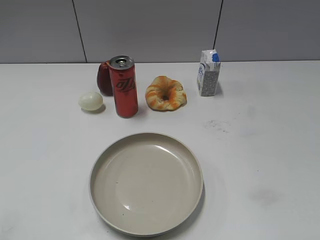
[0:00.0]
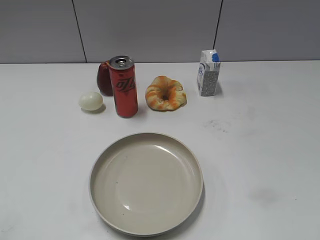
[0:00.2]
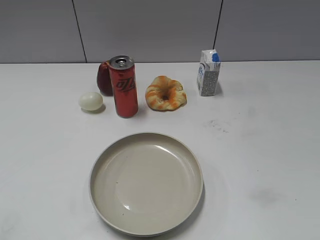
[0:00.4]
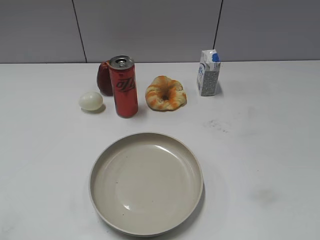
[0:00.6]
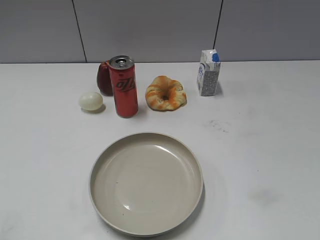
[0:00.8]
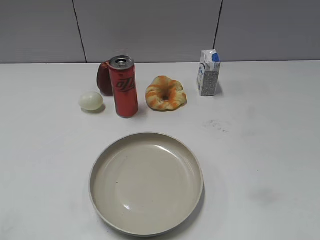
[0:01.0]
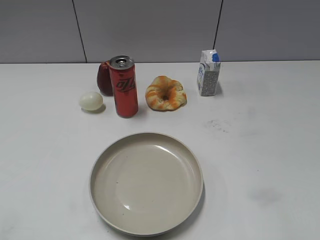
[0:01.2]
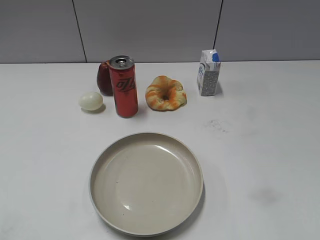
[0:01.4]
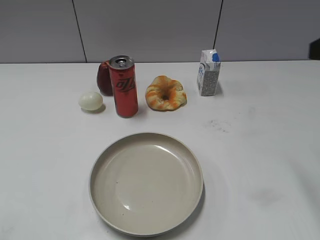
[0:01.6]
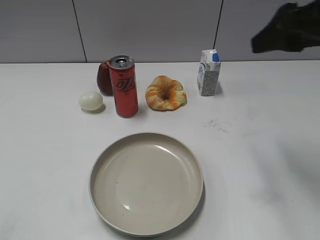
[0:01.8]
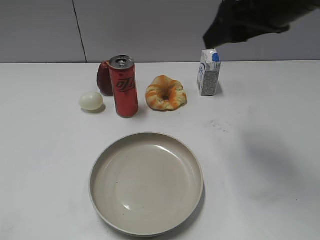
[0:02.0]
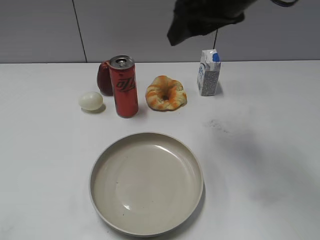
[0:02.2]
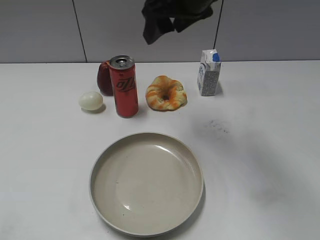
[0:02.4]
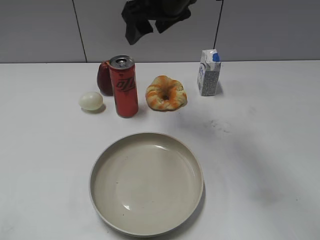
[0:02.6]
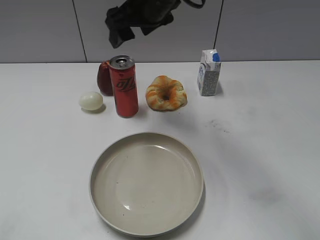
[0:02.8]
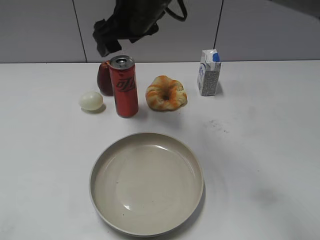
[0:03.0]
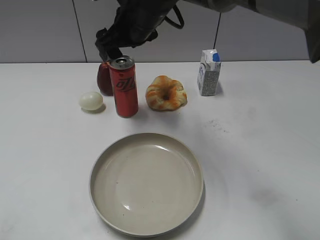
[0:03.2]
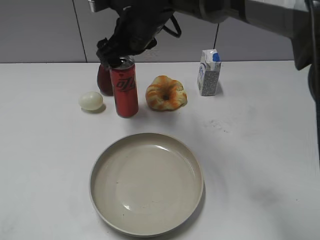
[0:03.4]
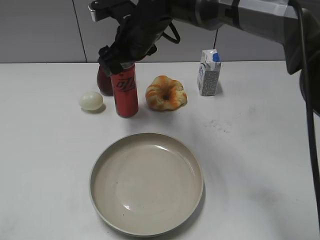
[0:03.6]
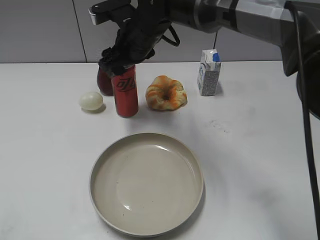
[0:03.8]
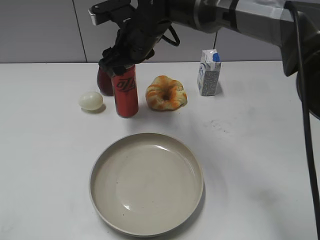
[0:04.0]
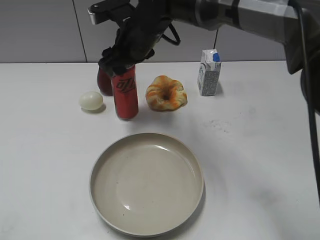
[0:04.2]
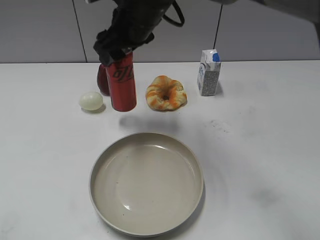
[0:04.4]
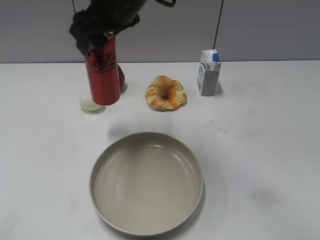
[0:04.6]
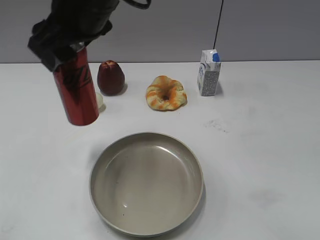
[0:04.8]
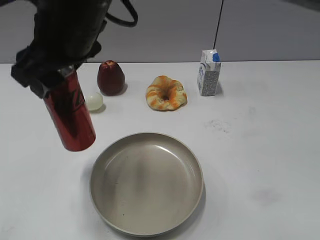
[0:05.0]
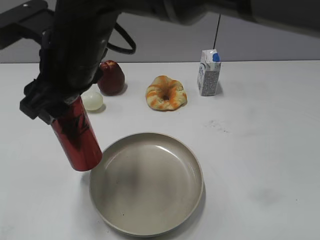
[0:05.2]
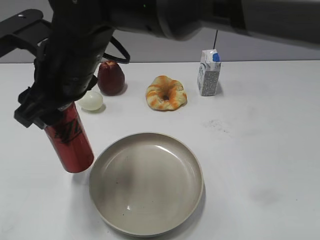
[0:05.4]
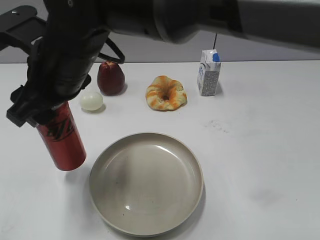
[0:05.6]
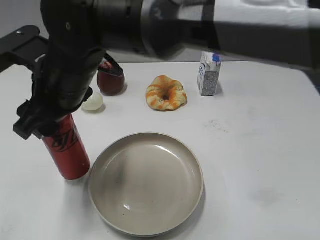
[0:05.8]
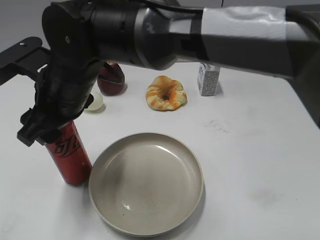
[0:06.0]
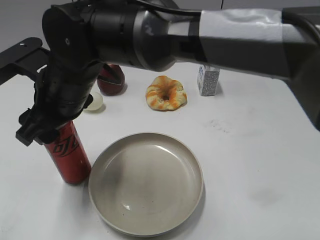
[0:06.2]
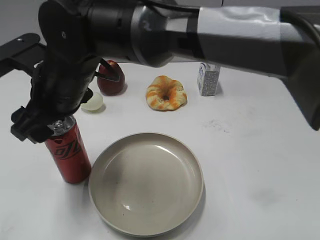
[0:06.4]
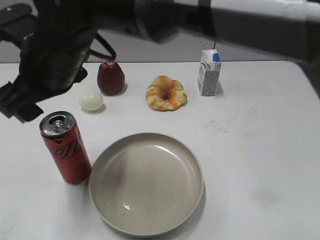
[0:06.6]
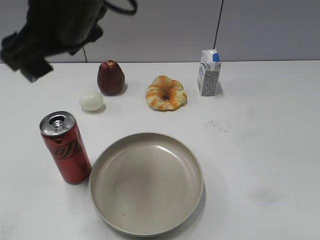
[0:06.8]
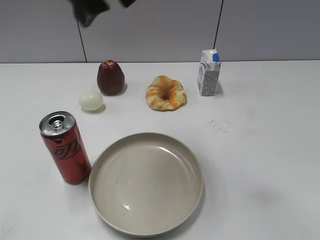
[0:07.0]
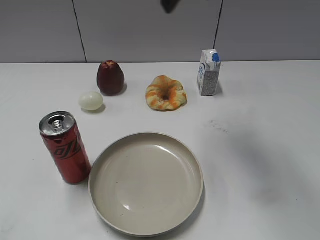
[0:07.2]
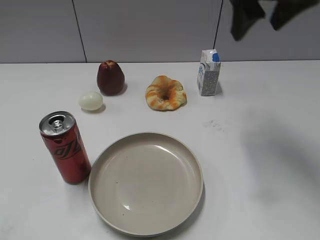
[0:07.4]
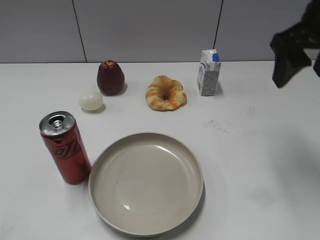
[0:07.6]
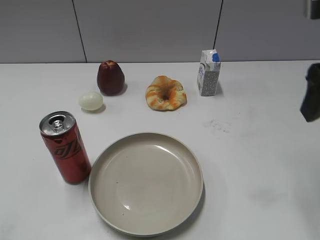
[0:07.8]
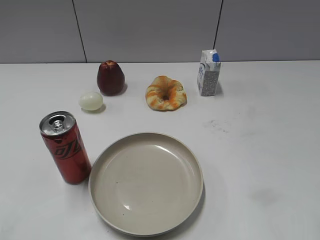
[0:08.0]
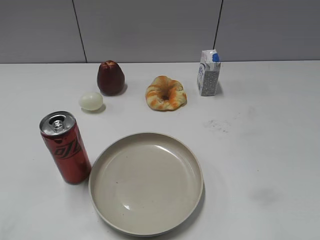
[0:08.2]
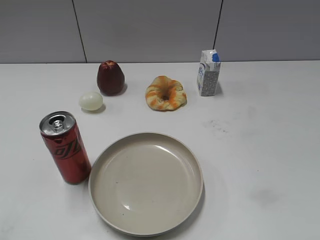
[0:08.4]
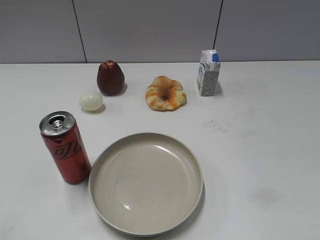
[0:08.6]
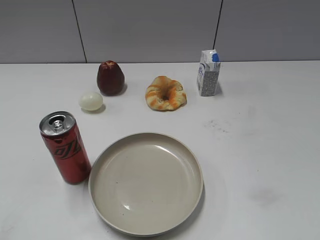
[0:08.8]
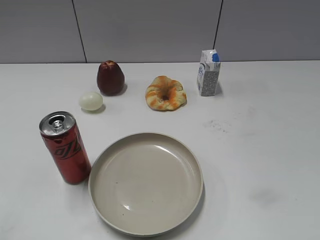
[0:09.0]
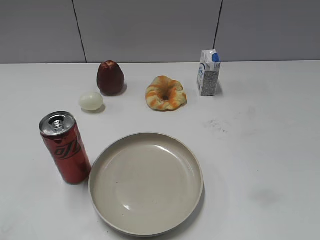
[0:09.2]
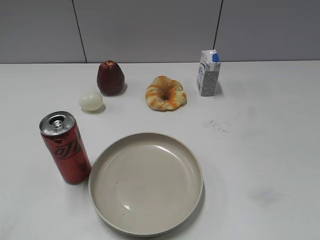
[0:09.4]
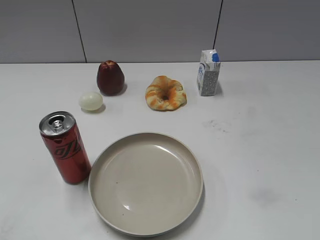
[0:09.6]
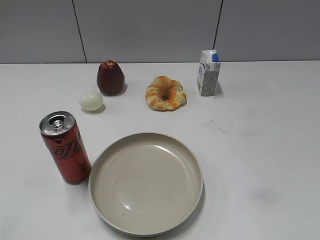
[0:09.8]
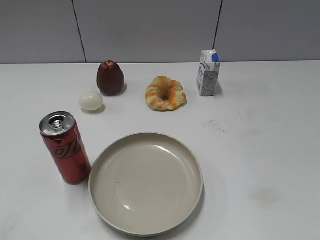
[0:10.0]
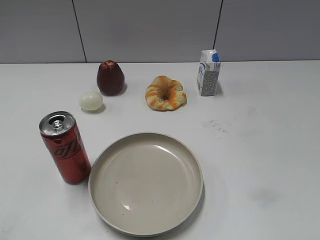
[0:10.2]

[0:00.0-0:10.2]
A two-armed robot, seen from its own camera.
Step, 0:00.8 to 0:03.8: Grasp the cola with right gripper.
Step, 0:04.0 to 0:06.6: Place the cola on the table with right gripper.
0:01.4 to 0:03.0: The right gripper heads to the left and forward, covering some 40 cm, and opens.
0:03.0 to 0:04.4: The right gripper closes up.
0:04.4 to 0:05.8: The right gripper moves backward and to the left, about 15 cm.
0:05.8 to 0:07.2: The right gripper goes approximately 25 cm to the right and upward, and opens its fingers.
0:07.2 to 0:08.8: The right gripper heads backward and to the right, covering approximately 40 cm, and closes.

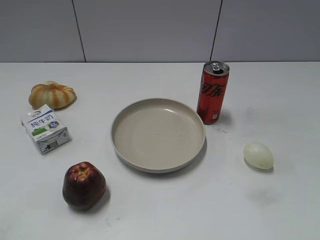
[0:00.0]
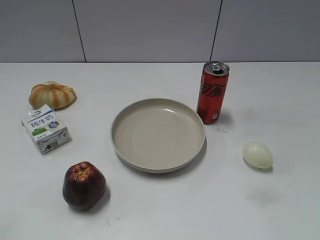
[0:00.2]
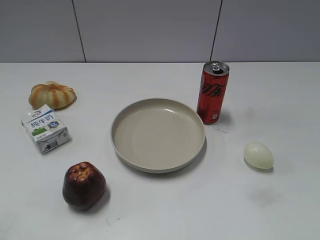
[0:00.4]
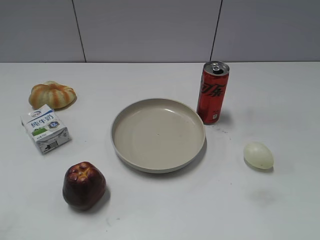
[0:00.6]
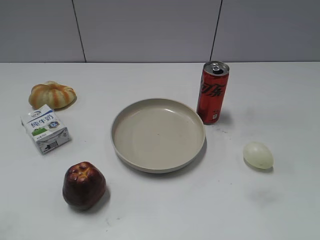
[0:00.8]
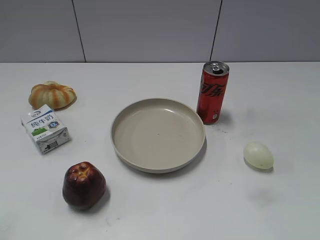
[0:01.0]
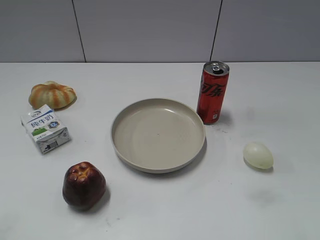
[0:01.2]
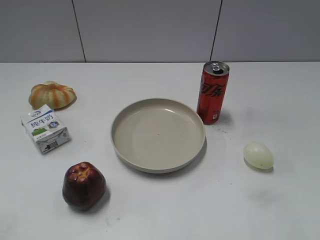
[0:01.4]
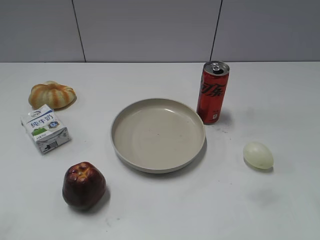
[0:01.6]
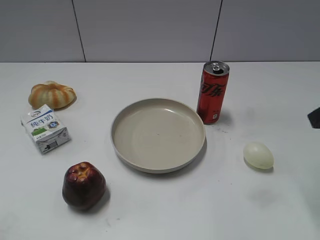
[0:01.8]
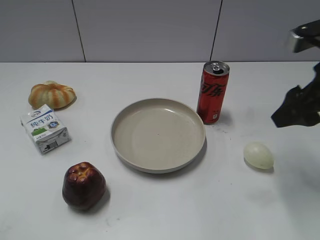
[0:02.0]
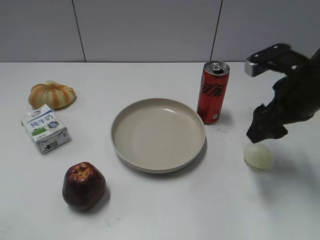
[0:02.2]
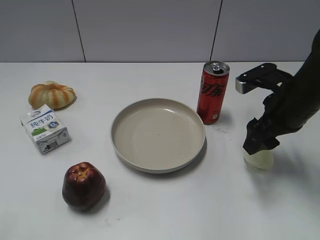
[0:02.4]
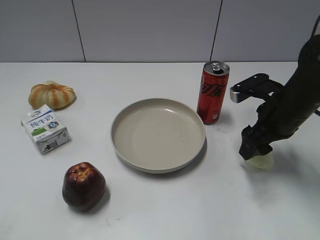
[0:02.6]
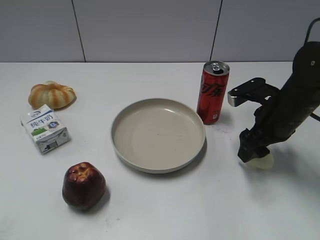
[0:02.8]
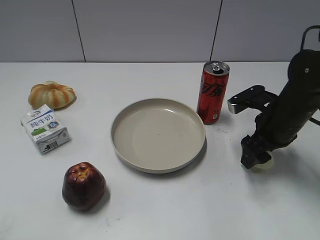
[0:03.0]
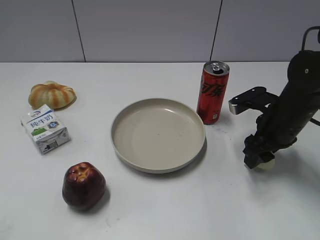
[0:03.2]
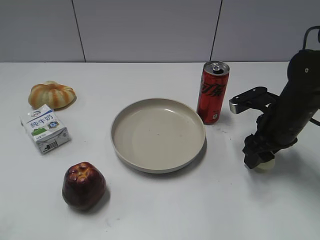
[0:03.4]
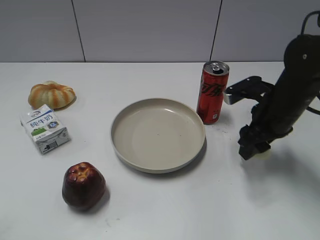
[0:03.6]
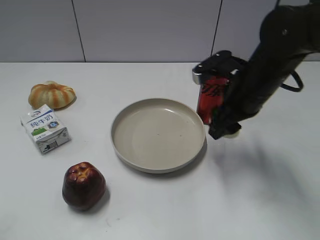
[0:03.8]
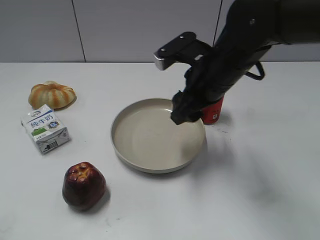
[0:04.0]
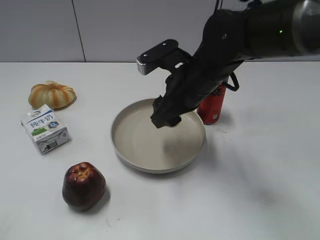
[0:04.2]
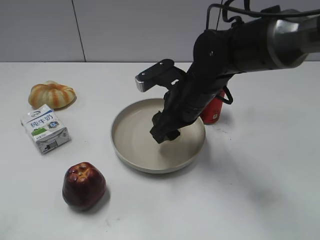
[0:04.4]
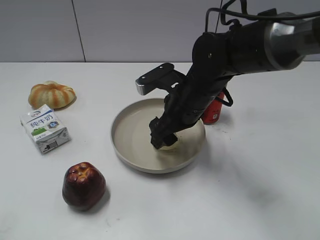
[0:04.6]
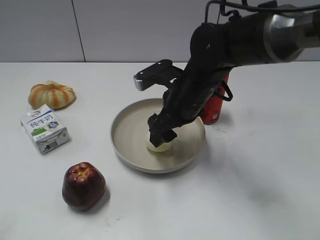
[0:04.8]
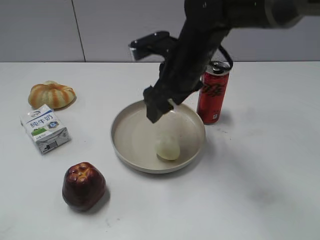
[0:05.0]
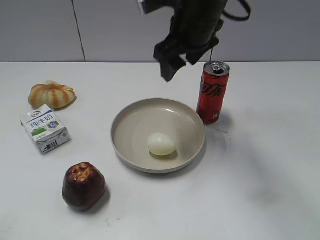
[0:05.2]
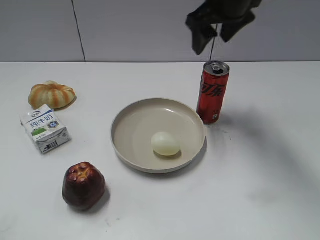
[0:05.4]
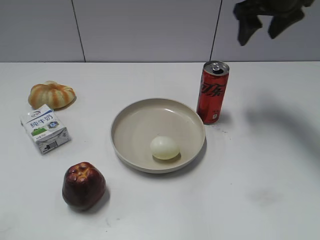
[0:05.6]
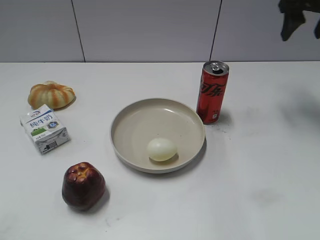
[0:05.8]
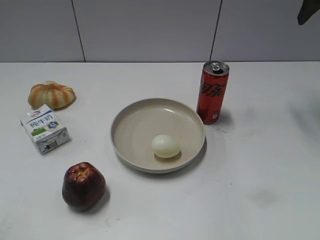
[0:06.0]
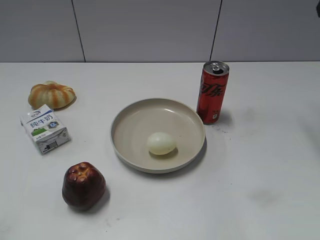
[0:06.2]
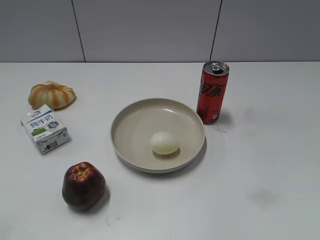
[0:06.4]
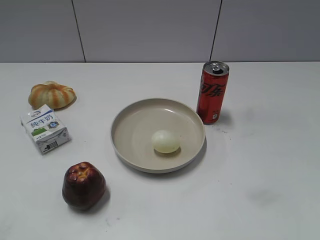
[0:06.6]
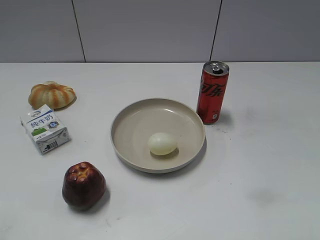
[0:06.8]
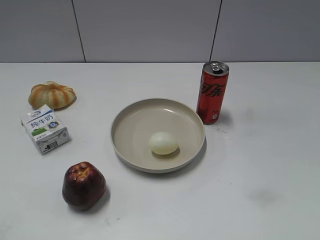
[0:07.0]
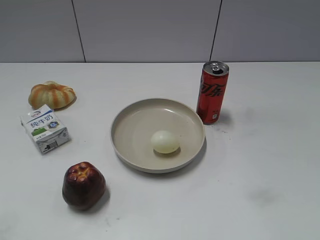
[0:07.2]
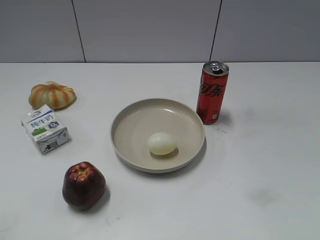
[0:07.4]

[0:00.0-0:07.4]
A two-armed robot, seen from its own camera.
Step, 0:00.8 to 0:03.2: Grasp the egg with right gripper.
Step, 0:03.4 to 0:04.8: Place the egg on the plate with right gripper.
0:01.4 to 0:03.0: The right gripper goes approximately 30 cm forward, downward and to the left.
0:03.0 to 0:04.4: The right gripper heads to the left, covering roughly 15 cm, and closes.
0:04.4 to 0:06.0: The right gripper is displaced to the right, upward and forward by about 30 cm, and opens up.
0:06.0 to 0:07.4: The right gripper shifts some 40 cm backward.

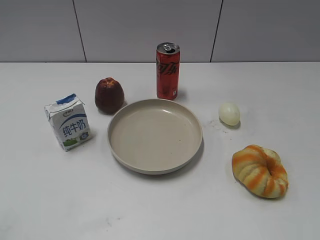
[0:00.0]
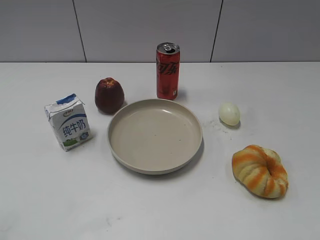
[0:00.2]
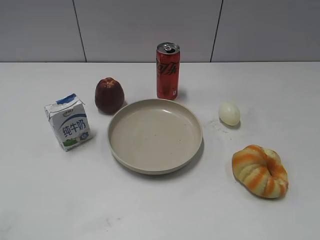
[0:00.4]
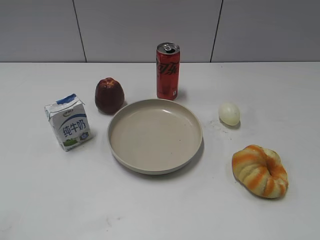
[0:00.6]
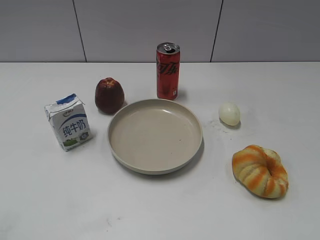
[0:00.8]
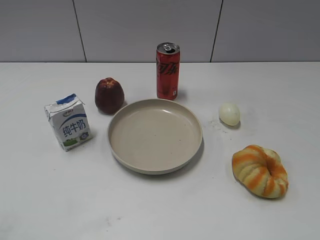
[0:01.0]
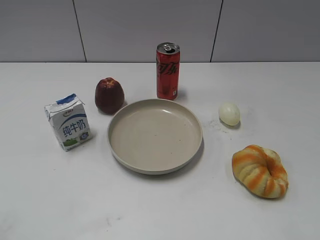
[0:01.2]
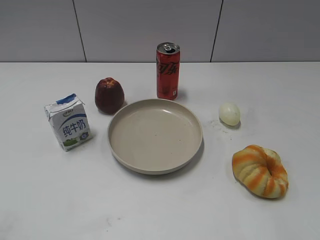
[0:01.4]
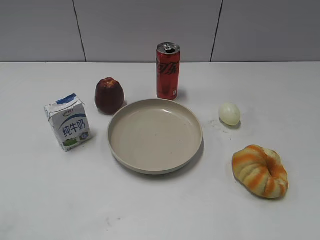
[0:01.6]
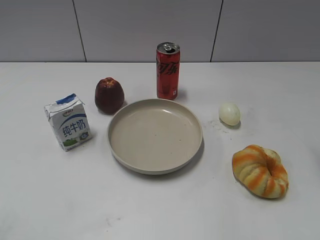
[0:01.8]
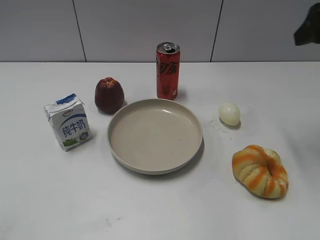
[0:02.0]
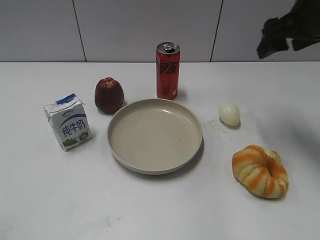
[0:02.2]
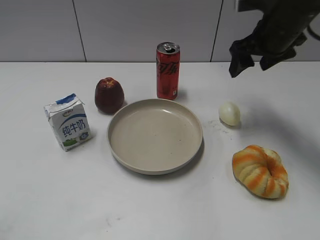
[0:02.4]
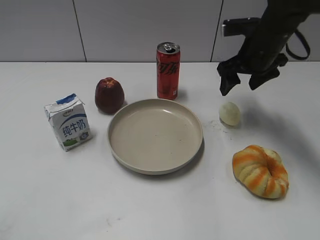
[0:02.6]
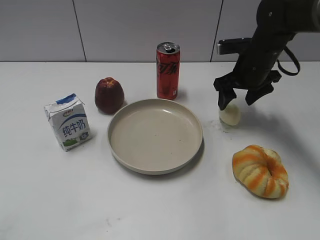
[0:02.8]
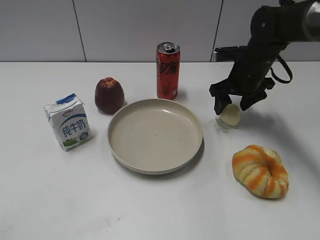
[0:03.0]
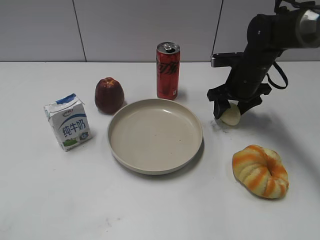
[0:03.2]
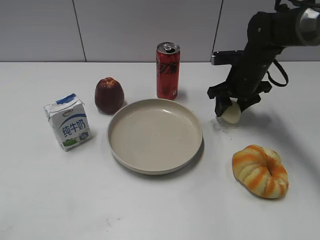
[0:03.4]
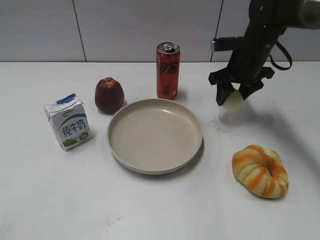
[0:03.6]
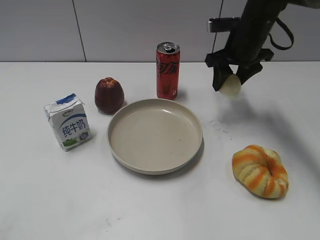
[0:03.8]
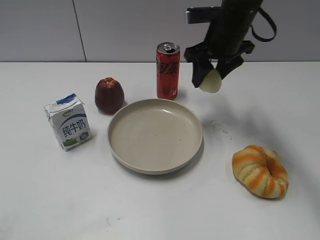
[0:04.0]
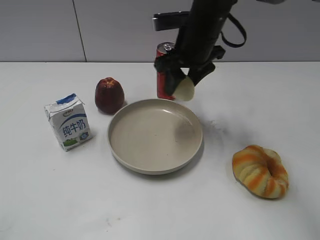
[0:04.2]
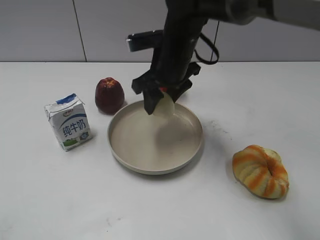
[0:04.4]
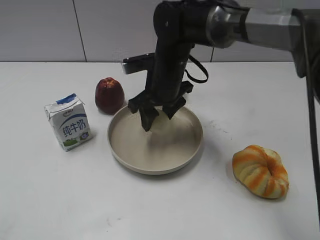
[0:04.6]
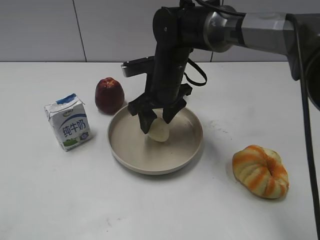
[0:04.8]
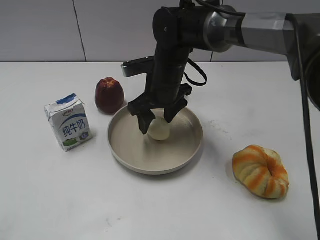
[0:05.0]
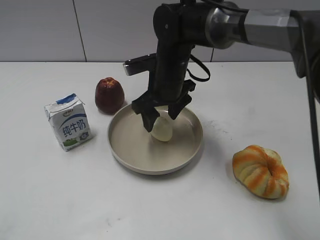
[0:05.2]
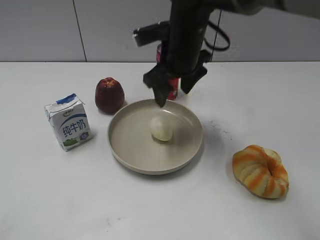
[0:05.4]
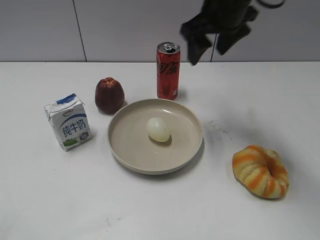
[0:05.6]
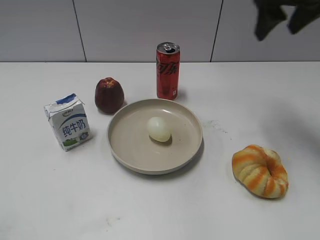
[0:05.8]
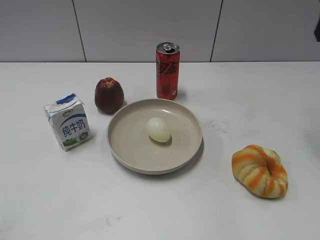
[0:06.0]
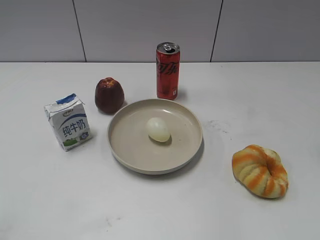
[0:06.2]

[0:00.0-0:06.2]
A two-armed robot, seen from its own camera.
Step, 0:01.0 to 0:03.2: Grasp the egg with right gripper.
Step, 0:03.4 to 0:05.2: Place the egg on the plate with right gripper.
0:01.6 to 0:03.2: The right gripper moves forward, downward and to the left, about 35 cm, and closes.
0:03.2 to 0:04.6: The right gripper shifts some 15 cm to the left.
0:04.6 to 0:06.2: The right gripper goes approximately 35 cm to the right and upward, and opens.
